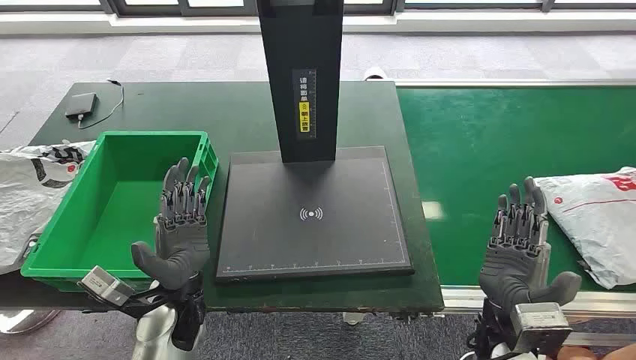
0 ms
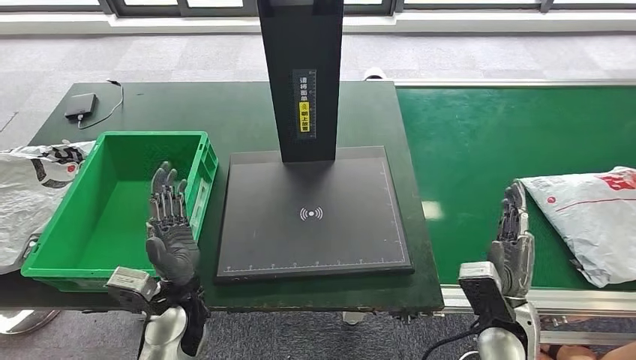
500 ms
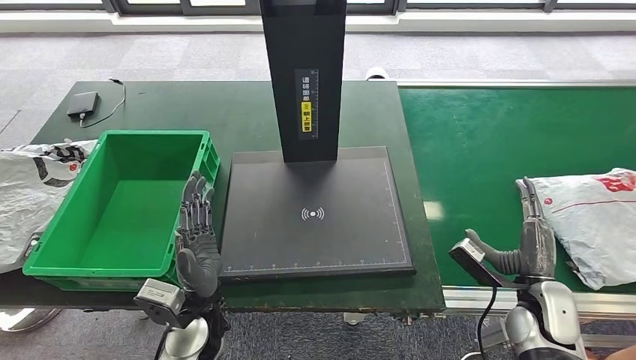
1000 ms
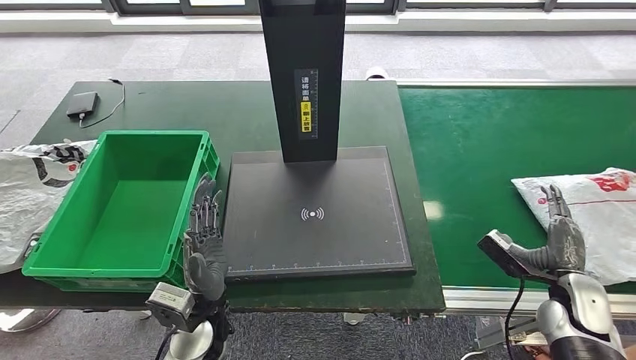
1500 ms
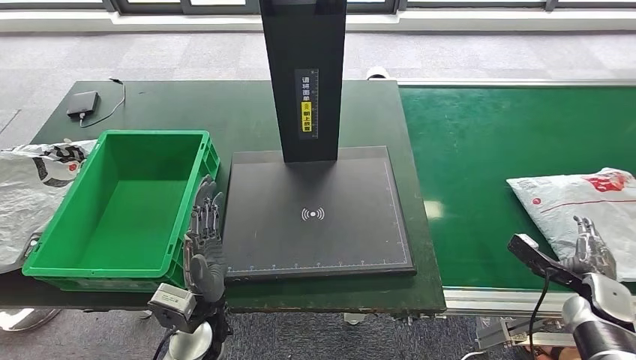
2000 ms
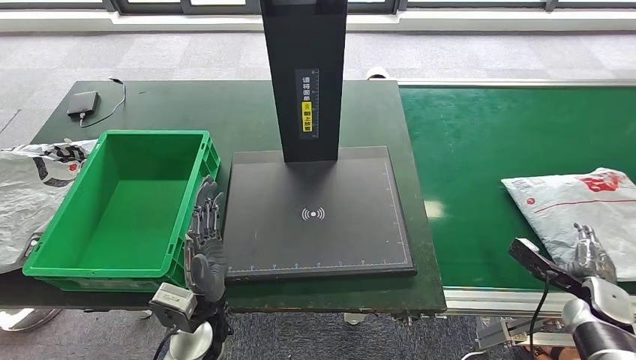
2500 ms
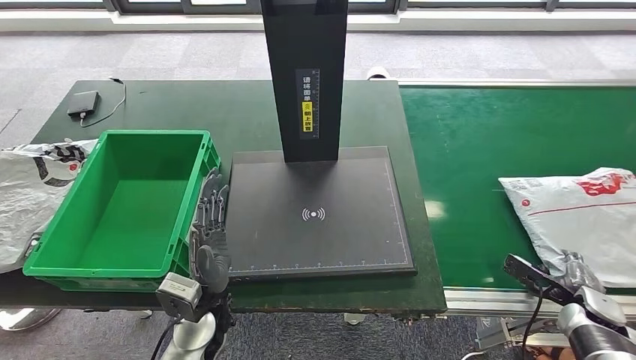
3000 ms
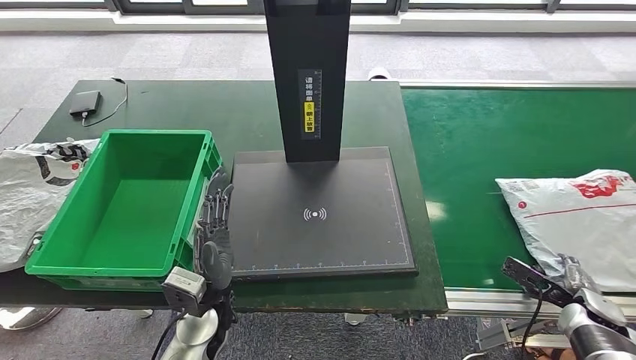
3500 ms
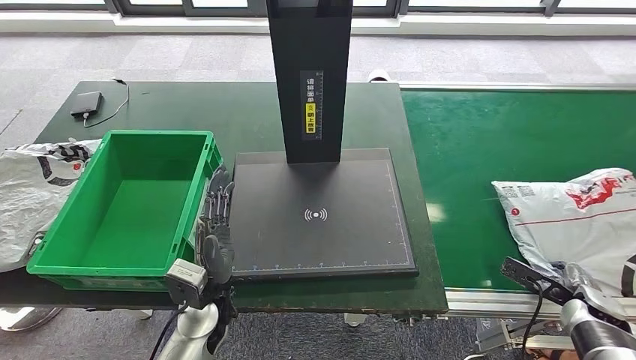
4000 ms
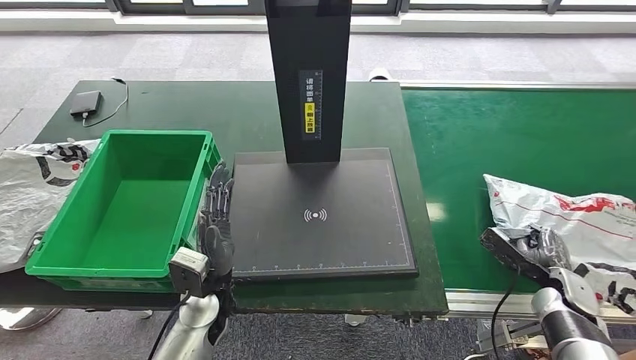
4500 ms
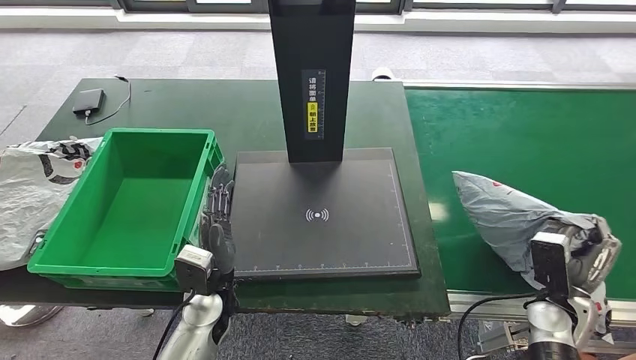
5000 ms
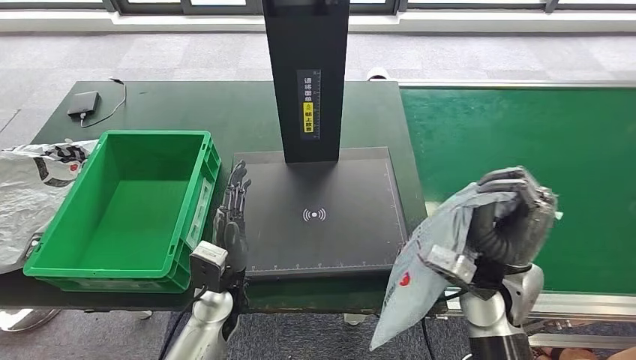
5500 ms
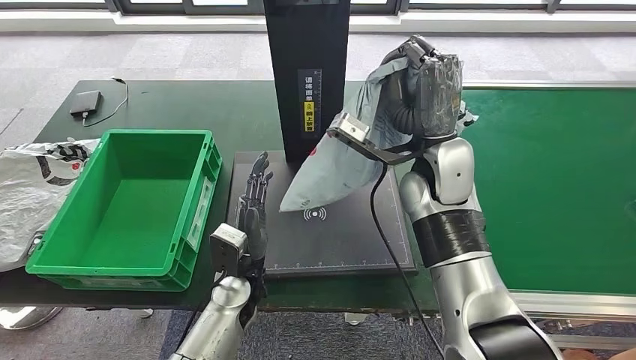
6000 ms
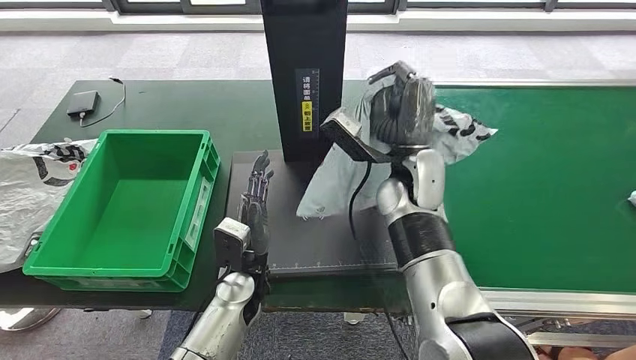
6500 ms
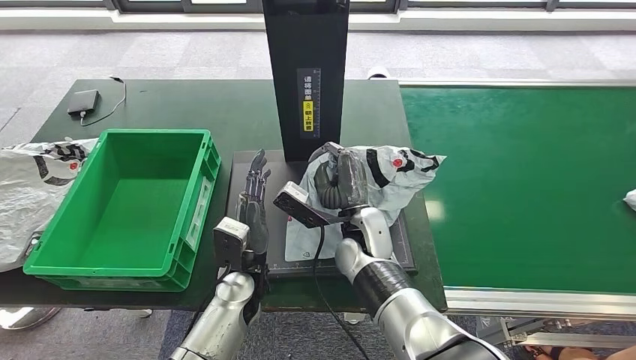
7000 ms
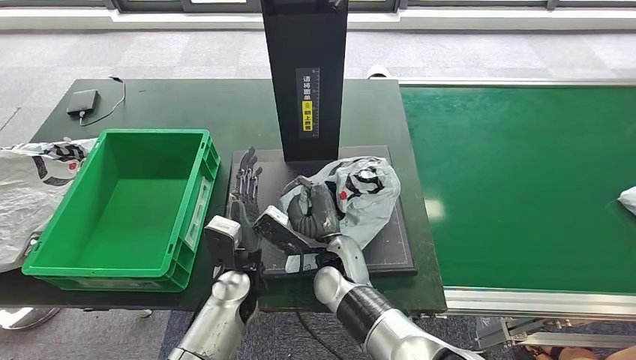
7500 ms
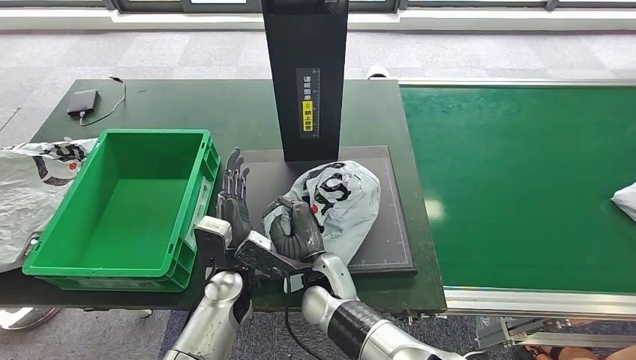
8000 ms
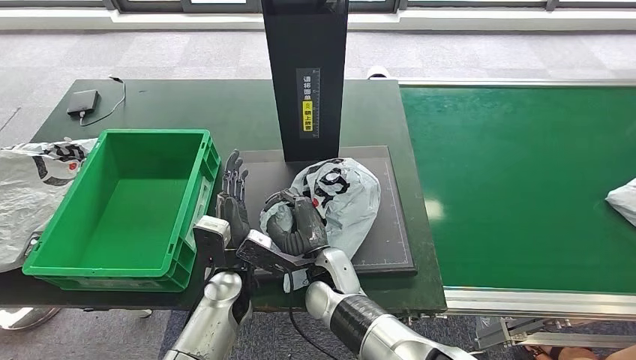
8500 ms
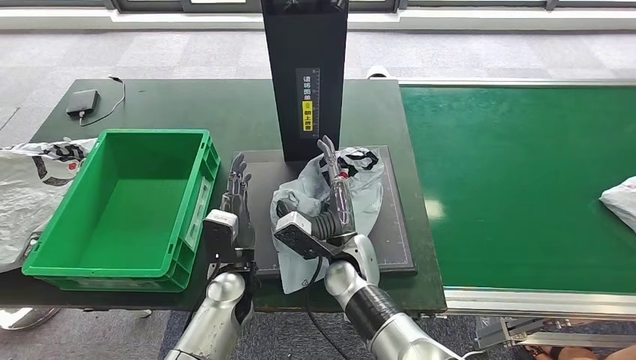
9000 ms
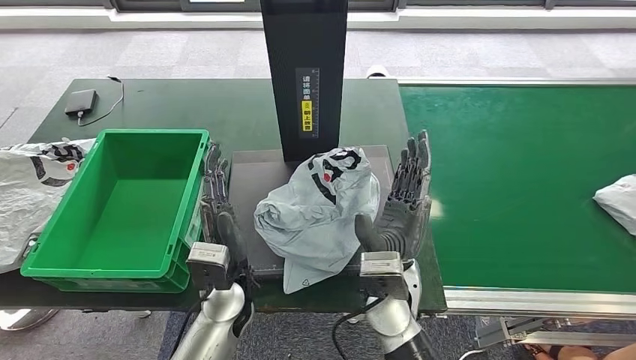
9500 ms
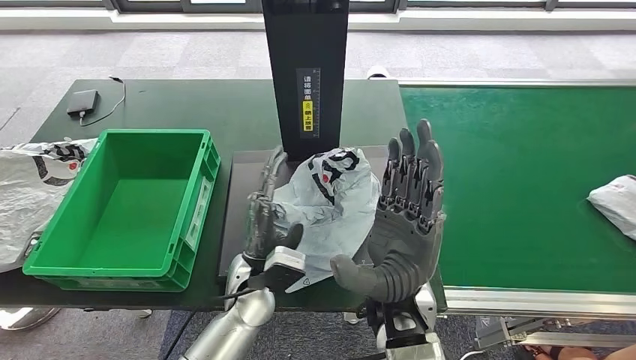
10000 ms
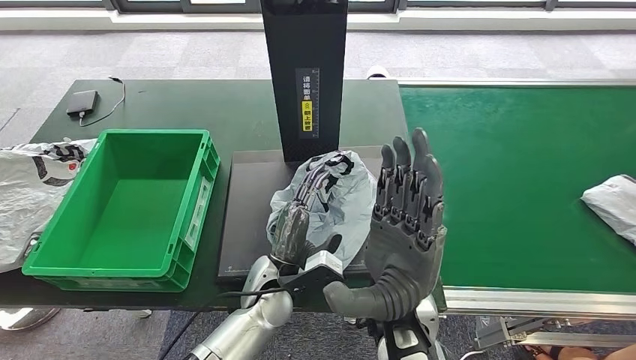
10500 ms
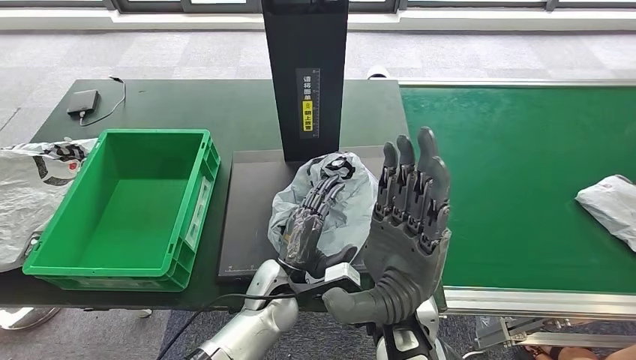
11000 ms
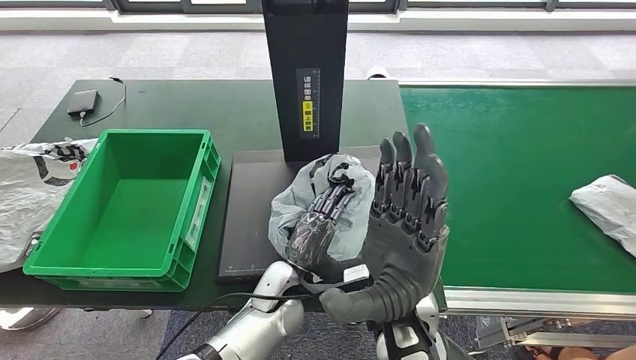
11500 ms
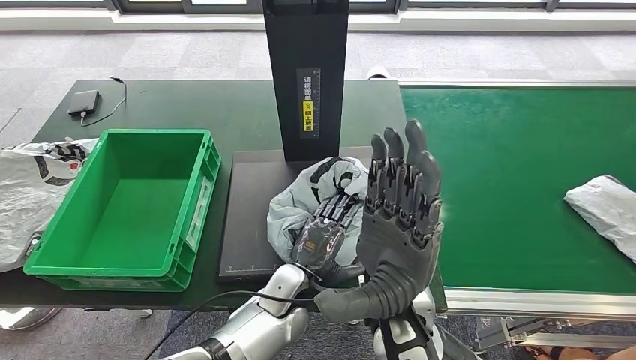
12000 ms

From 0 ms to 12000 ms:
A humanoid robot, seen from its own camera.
Step, from 0 ms to 5500 ms: Take the parcel off the conveyor belt.
Step, from 6000 ms to 10000 ms: Place the parcel onto the inbound machine.
From 8000 ms to 10000 ms: The right hand shifts approximately 15 cm upward and to the right.
From 10000 ms to 12000 ms: The left hand goes approximately 5 cm downward.

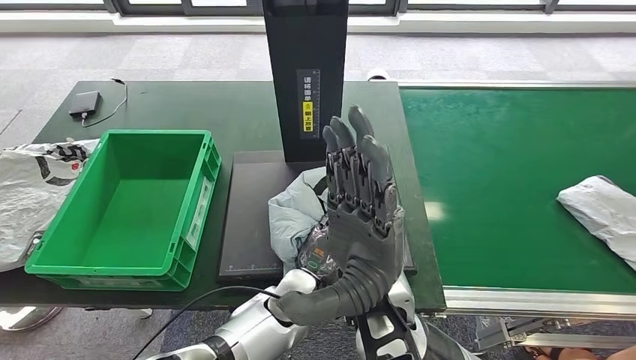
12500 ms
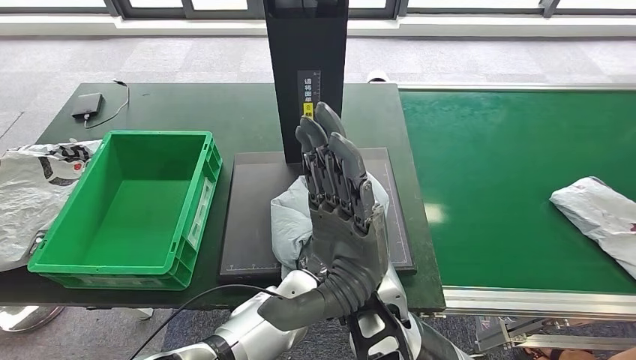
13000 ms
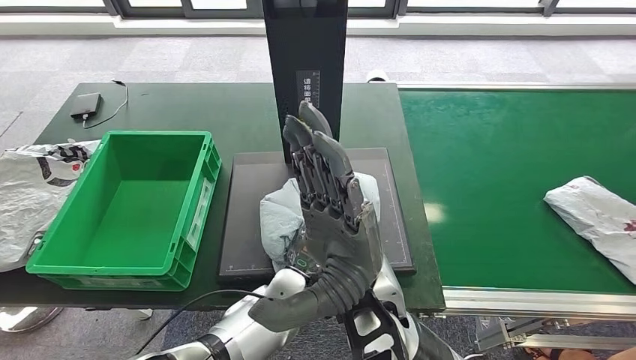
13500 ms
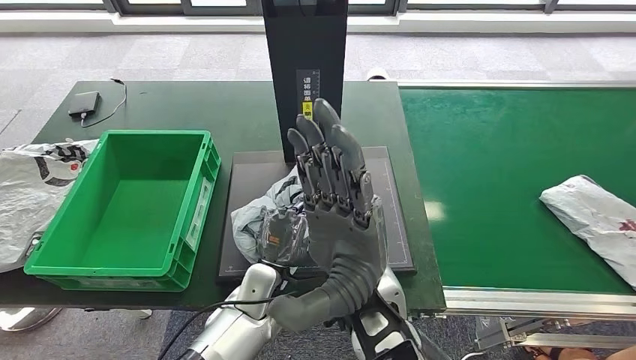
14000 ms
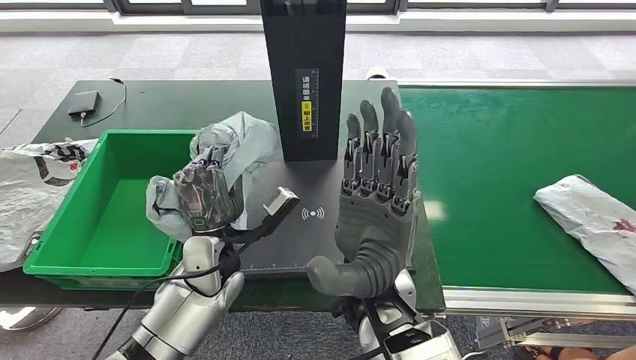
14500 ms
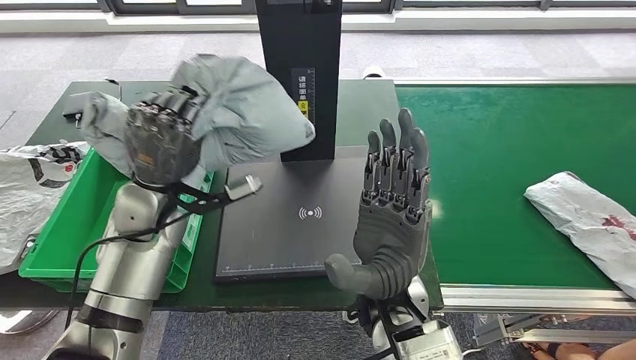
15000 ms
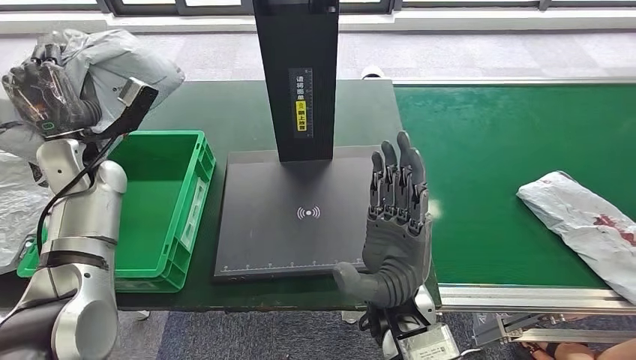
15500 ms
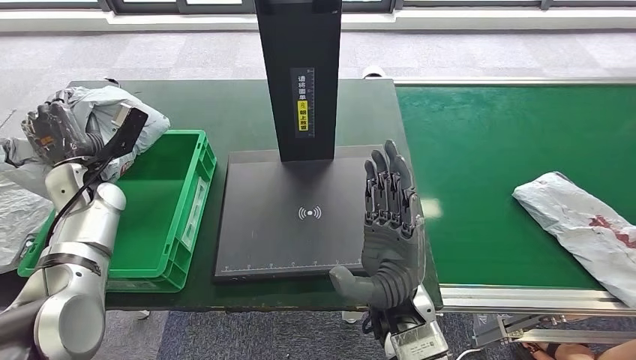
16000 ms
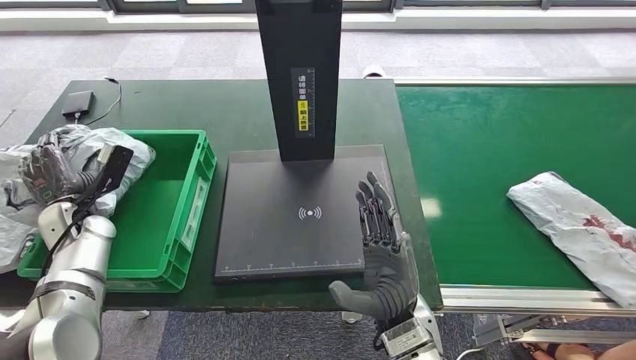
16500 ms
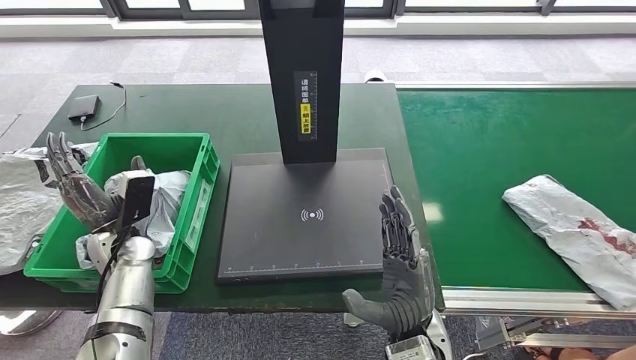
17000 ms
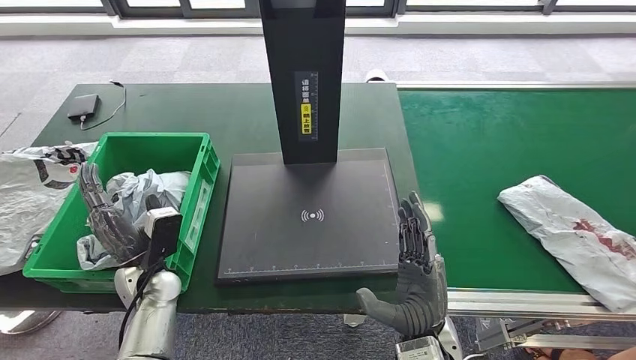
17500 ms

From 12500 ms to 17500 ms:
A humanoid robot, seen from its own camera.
Step, from 12500 ms to 14500 ms: Pick up the parcel from the inbound machine.
Step, from 15500 ms to 17500 ms: Put the parcel inside the courier box.
